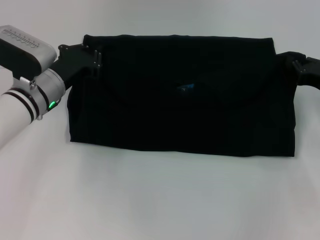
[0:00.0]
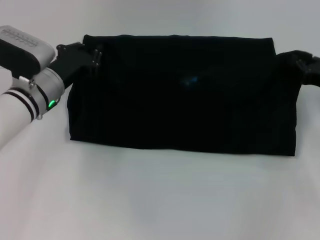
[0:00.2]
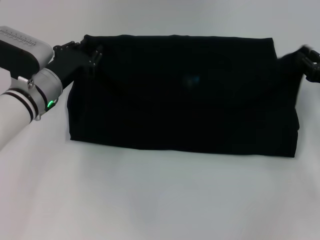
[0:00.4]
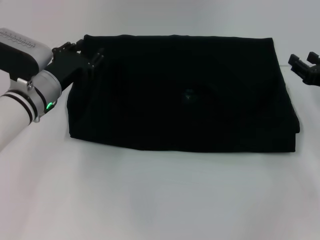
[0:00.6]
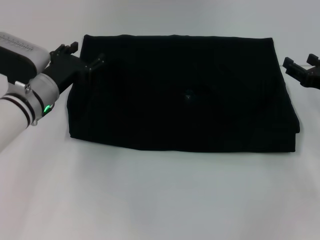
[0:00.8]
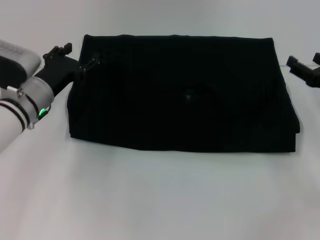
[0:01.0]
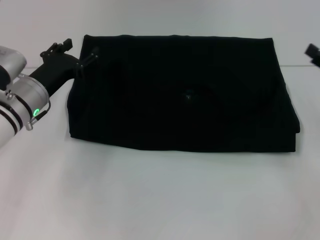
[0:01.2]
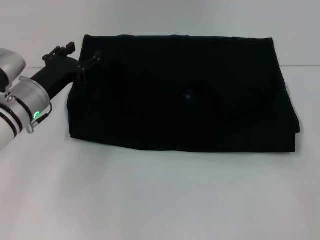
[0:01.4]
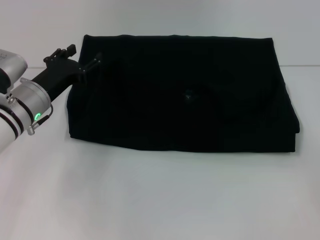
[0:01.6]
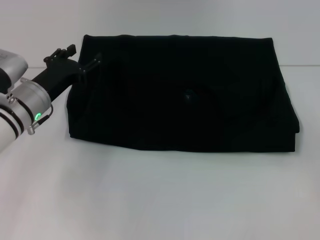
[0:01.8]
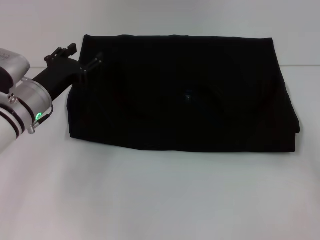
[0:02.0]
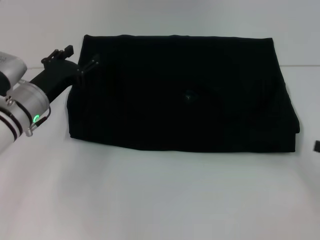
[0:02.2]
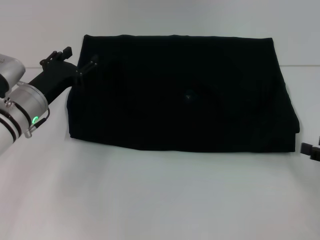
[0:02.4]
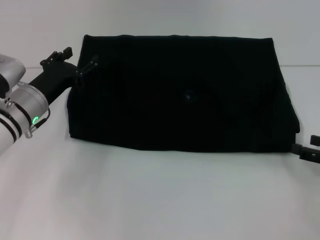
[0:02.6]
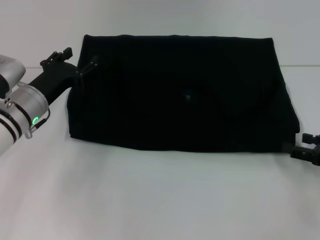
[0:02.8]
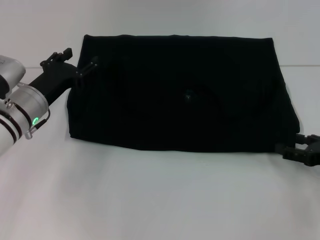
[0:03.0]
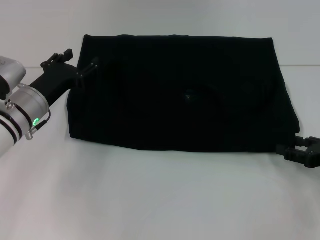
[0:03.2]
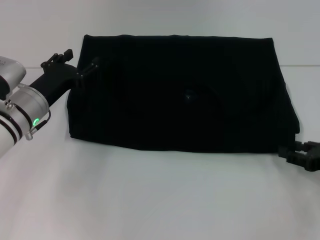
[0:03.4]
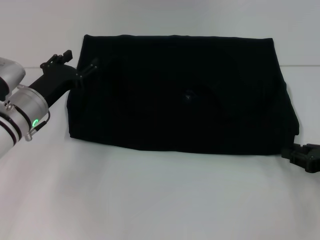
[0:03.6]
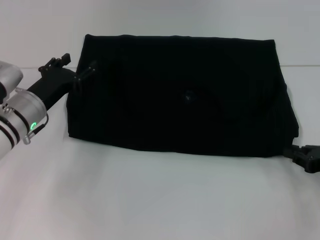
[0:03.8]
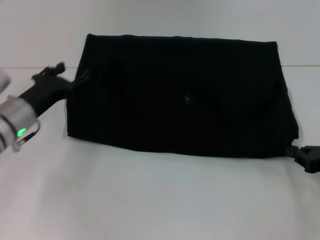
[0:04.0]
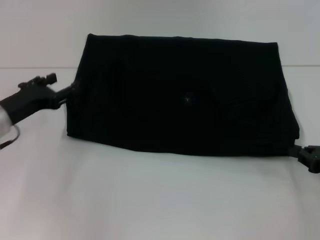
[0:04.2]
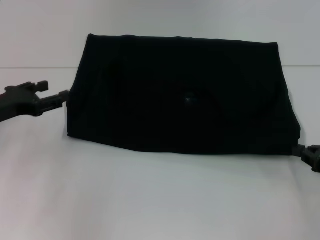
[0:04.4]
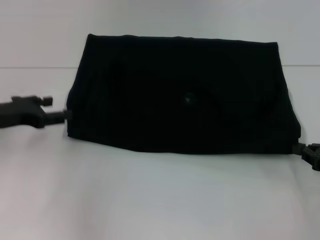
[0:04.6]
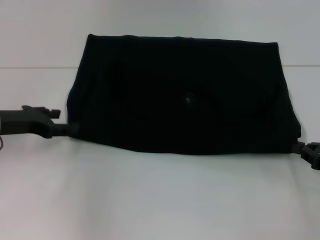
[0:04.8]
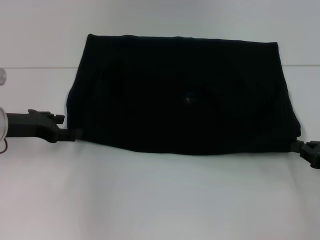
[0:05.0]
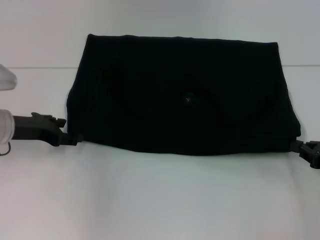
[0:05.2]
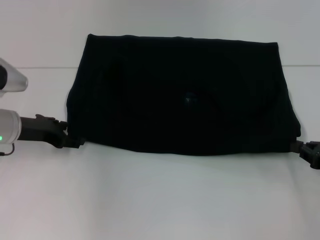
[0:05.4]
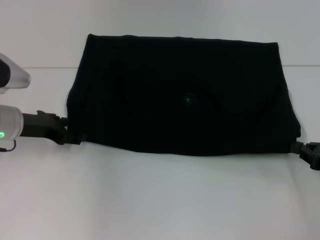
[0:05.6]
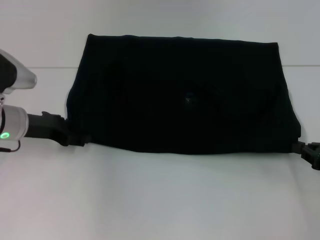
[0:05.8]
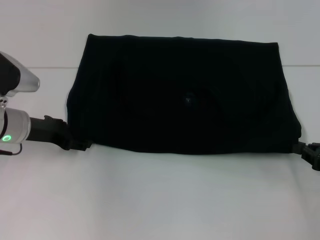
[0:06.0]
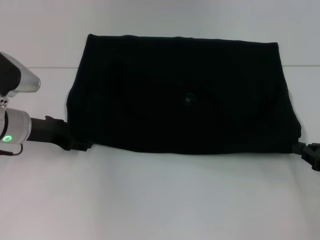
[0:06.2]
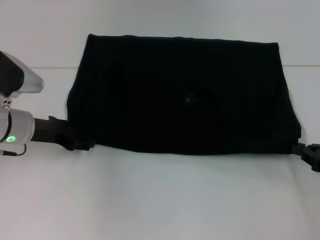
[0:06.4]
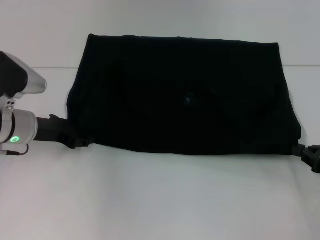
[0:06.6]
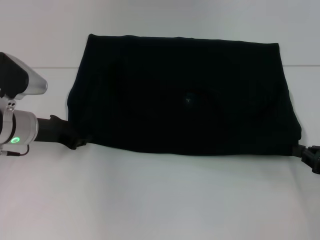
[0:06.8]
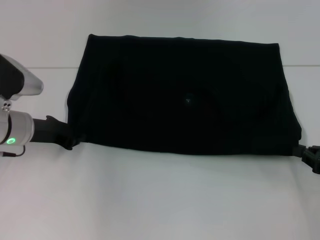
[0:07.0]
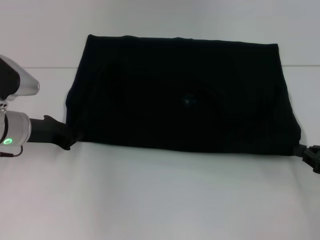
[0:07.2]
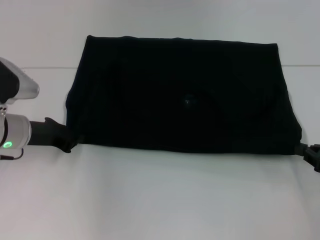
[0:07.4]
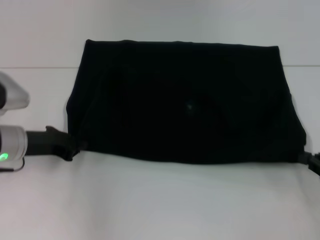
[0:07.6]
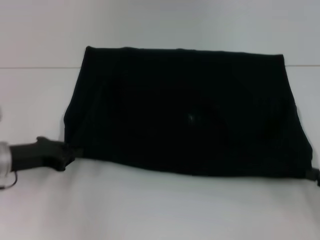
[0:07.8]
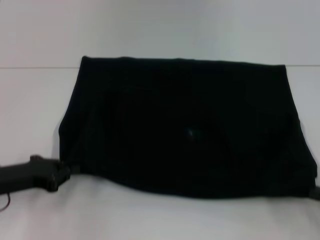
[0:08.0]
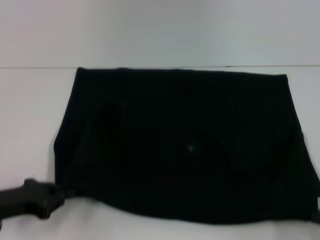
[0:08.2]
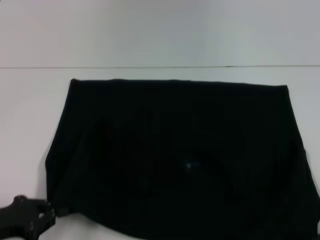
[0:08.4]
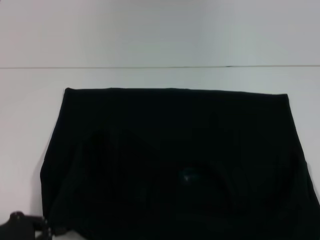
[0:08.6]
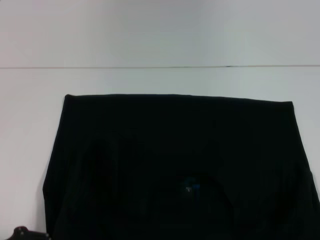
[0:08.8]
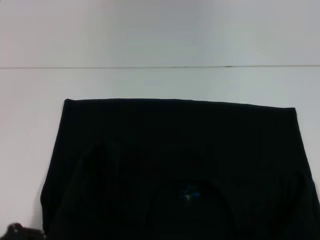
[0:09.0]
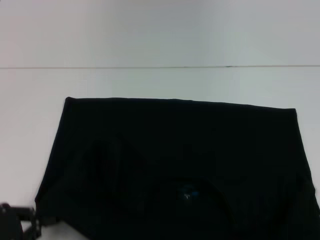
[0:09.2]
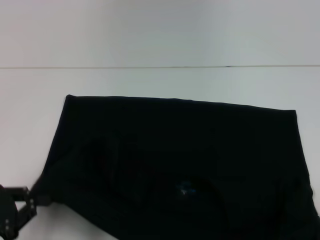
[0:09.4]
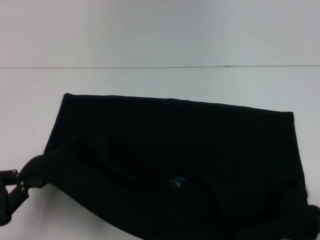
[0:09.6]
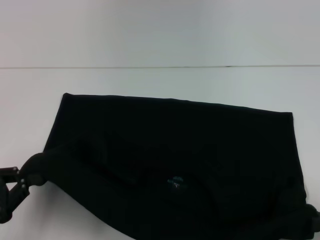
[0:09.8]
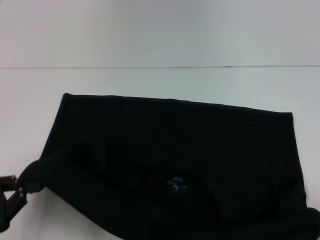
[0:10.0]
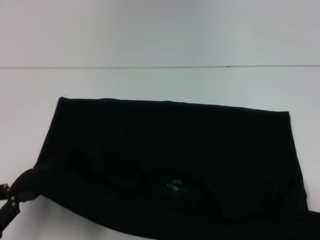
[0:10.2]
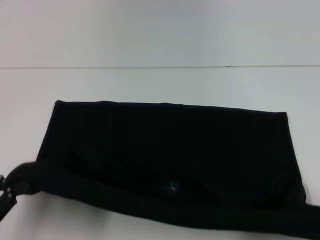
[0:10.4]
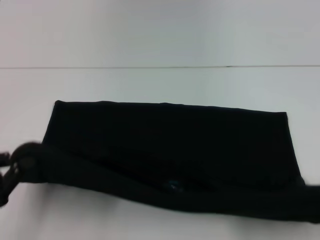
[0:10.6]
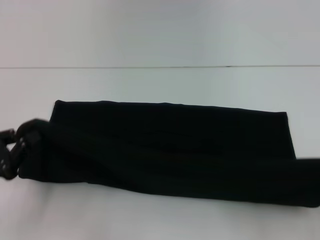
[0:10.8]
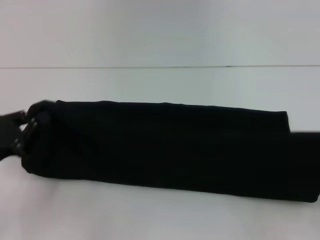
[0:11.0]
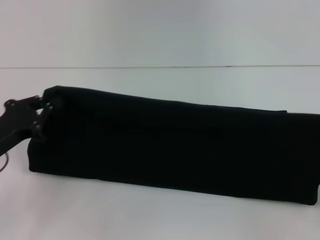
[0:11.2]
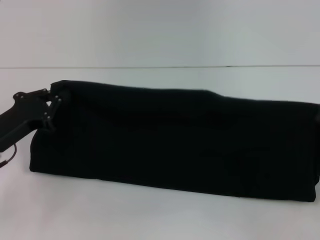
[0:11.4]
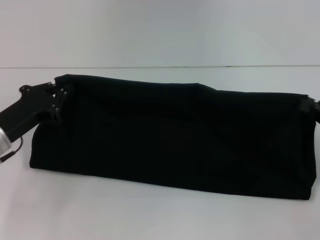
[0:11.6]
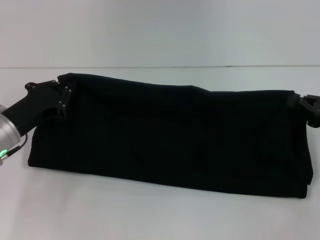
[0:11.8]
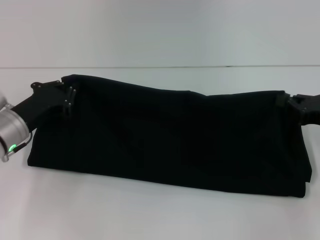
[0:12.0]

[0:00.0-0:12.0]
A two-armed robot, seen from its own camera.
Step, 0:01.2 to 0:08.8: Pull the clothes with your left hand.
Step, 0:01.2 to 0:08.8: Pull the clothes with your right hand.
0:00.0 to 0:01.6: The left gripper opens up, while the right gripper heads backward, to the right and upward, covering approximately 15 cm, and opens up.
0:01.6 to 0:03.0: The right gripper travels downward and to the left by about 10 cm.
0:03.0 to 0:04.4: The right gripper closes its fingers. The left gripper shifts approximately 10 cm to the left.
0:04.4 to 0:06.0: The left gripper is displaced to the right by about 5 cm.
0:06.0 to 0:07.6: The left gripper closes.
0:07.6 to 0:09.0: The left gripper goes some 20 cm backward. The right gripper shifts approximately 10 cm backward.
0:10.4 to 0:12.0: The left gripper is displaced forward and to the right by about 20 cm, while the right gripper heads forward and to the left, covering roughly 15 cm.

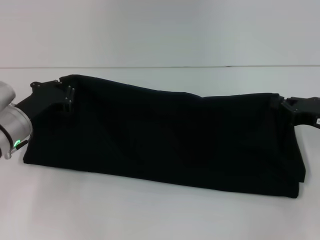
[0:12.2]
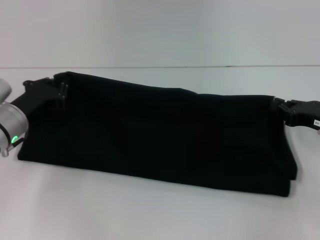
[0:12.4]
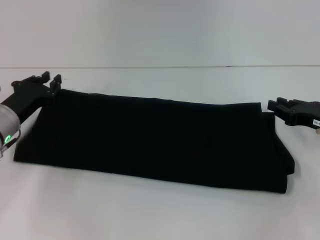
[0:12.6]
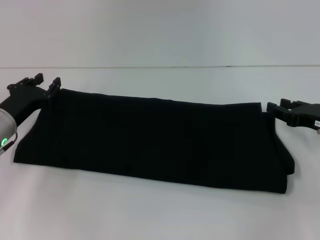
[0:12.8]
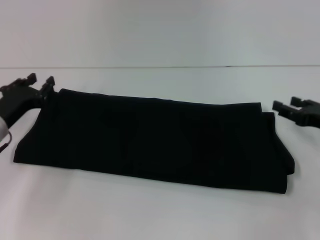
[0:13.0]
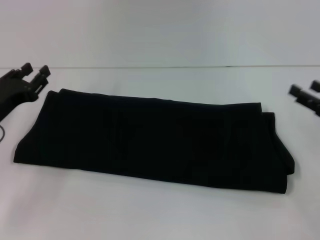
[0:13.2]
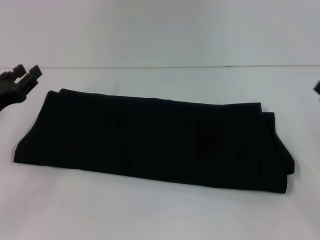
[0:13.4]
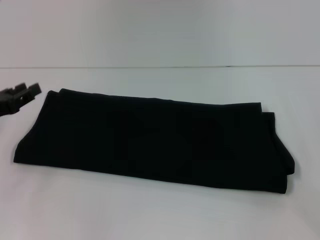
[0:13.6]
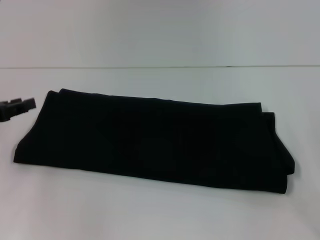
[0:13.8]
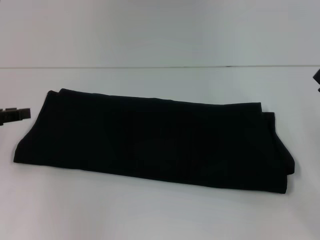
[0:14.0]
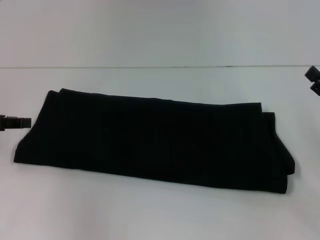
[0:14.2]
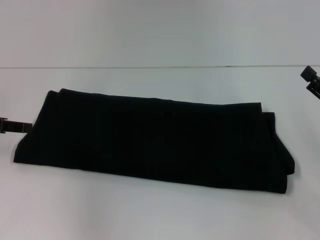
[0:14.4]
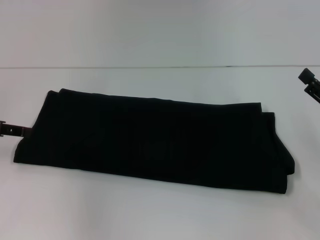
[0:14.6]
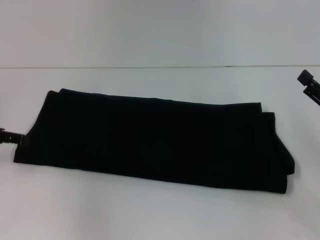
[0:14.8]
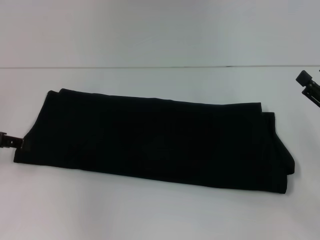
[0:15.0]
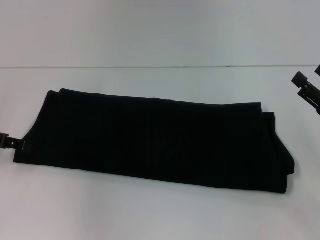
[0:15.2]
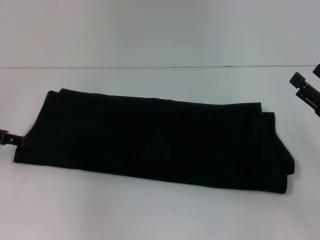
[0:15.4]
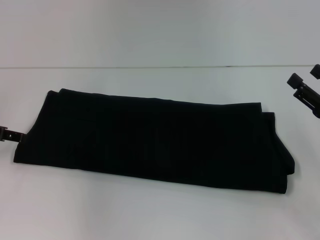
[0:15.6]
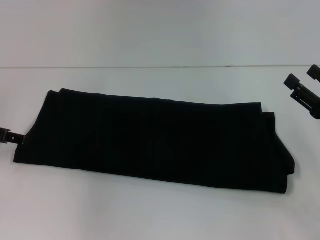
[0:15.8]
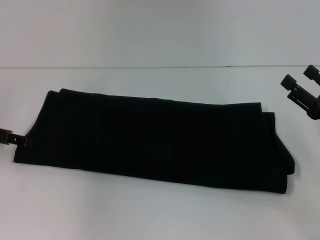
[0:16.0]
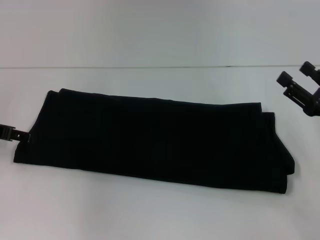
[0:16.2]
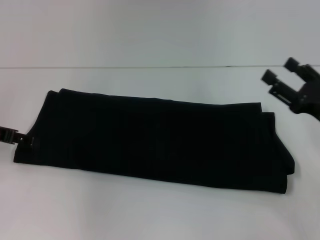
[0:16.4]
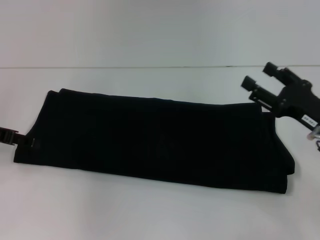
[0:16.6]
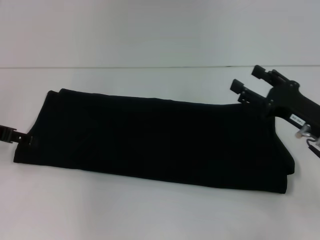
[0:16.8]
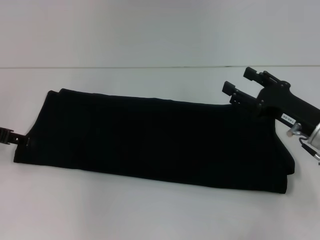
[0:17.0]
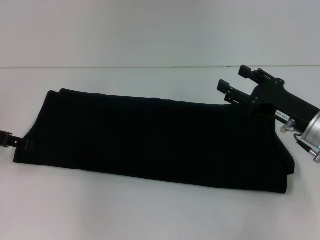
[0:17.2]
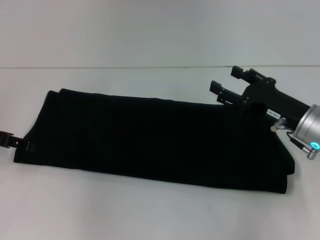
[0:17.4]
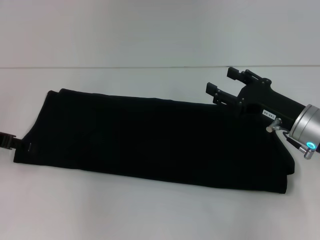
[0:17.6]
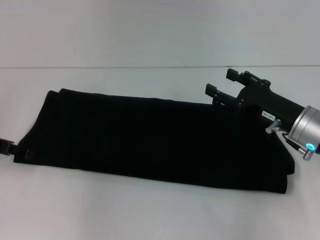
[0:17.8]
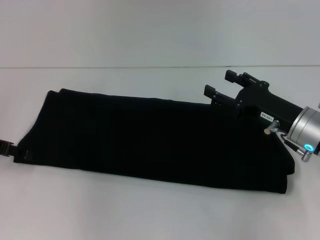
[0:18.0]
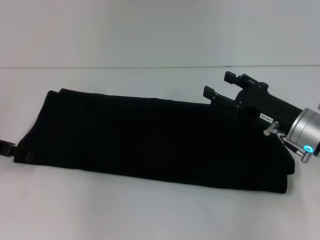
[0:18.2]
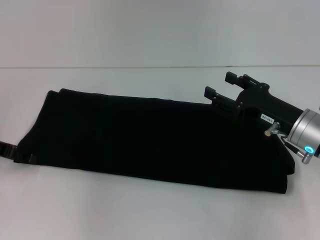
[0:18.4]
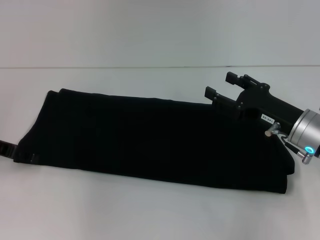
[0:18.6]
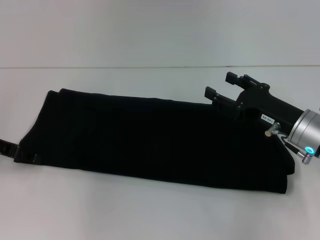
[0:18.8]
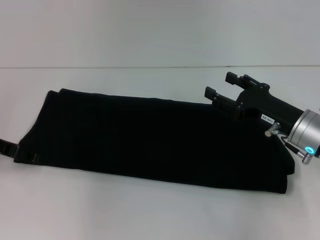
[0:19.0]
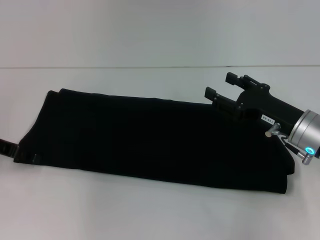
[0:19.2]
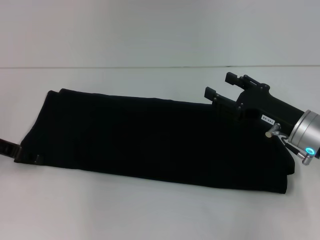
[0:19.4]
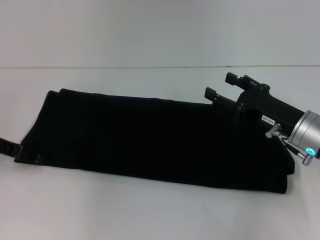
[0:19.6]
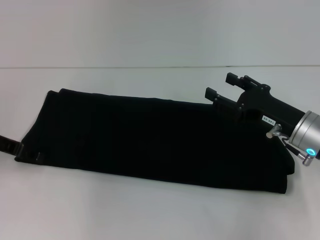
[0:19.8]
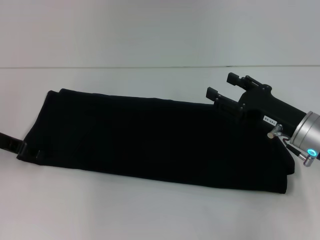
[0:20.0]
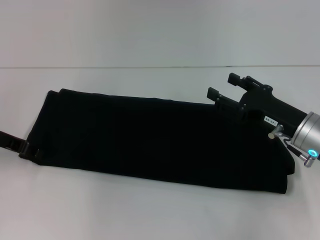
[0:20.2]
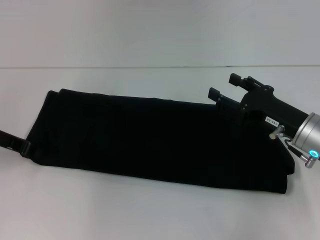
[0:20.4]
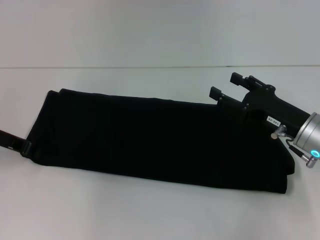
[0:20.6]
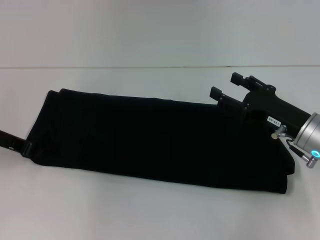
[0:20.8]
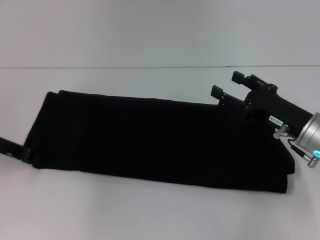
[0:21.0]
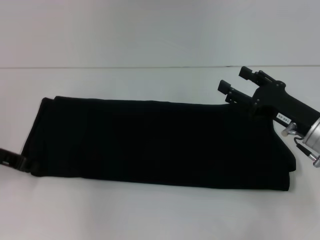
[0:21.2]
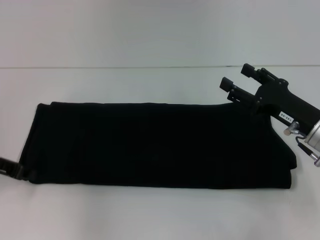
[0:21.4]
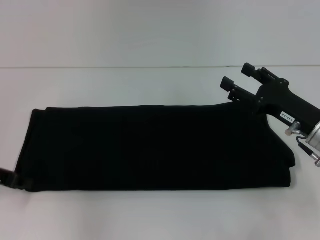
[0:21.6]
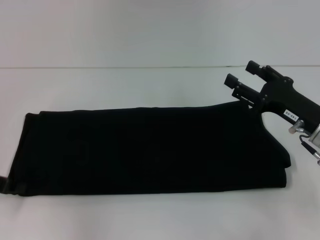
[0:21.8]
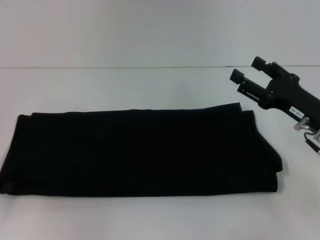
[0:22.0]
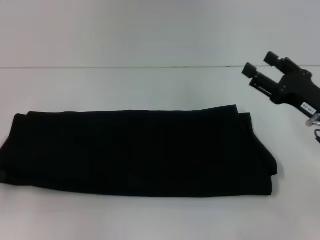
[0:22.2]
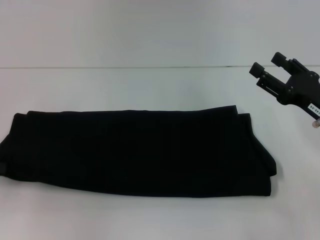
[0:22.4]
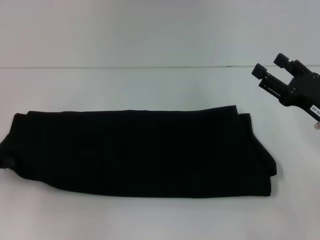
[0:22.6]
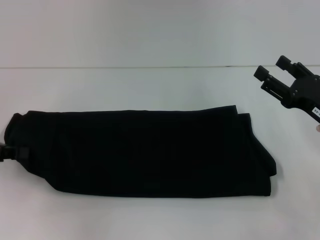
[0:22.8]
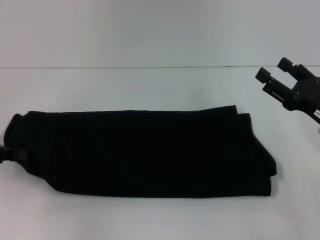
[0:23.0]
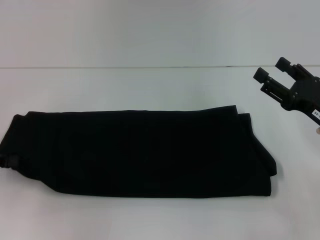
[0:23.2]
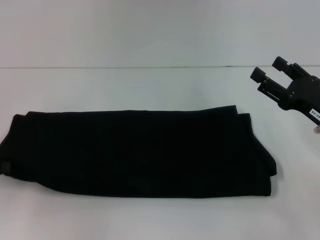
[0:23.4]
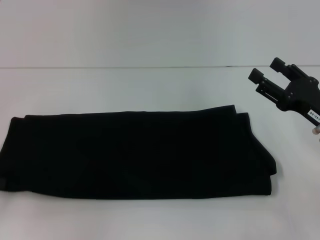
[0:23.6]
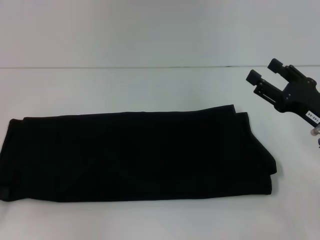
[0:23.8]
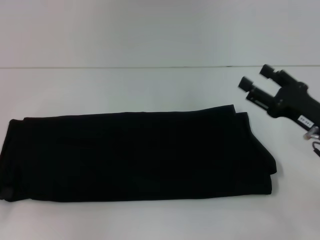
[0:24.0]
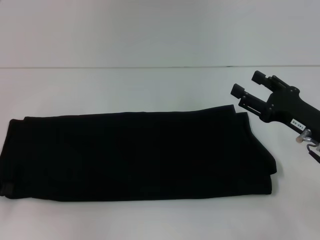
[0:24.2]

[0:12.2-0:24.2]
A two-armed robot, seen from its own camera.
0:12.2 to 0:13.8: The left gripper shifts roughly 10 cm to the left and upward, and opens its fingers. Meanwhile the right gripper moves backward, approximately 5 cm, and opens its fingers.
0:15.2 to 0:16.6: The right gripper changes place by some 5 cm.
0:16.6 to 0:18.2: The right gripper shifts by approximately 5 cm.
0:18.2 to 0:19.8: There are only small adjustments of the grippers.
0:19.8 to 0:21.2: The left gripper closes up.
0:21.2 to 0:22.6: The left gripper goes about 5 cm backward and to the left.
0:22.6 to 0:24.2: The grippers stay close to where they were, moving slightly.
